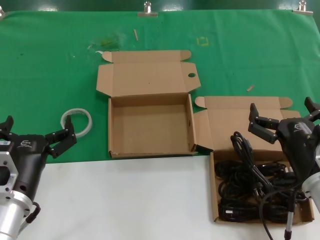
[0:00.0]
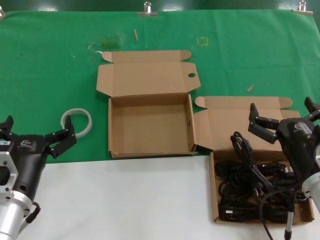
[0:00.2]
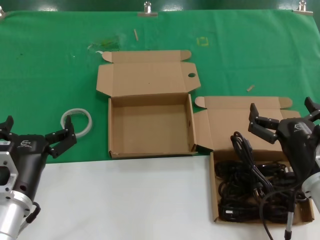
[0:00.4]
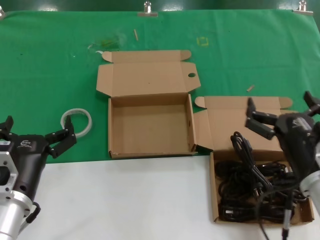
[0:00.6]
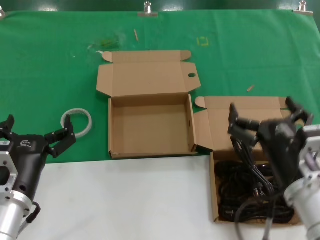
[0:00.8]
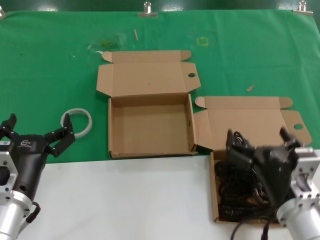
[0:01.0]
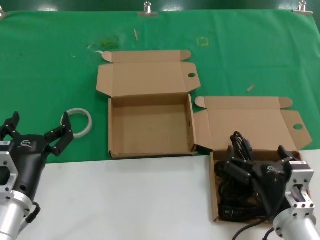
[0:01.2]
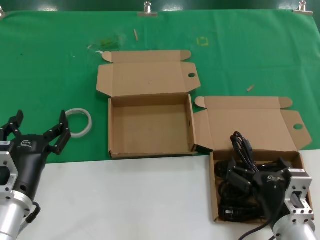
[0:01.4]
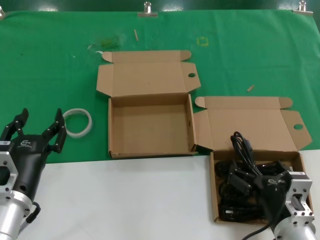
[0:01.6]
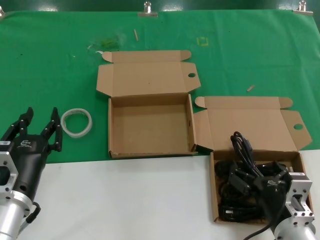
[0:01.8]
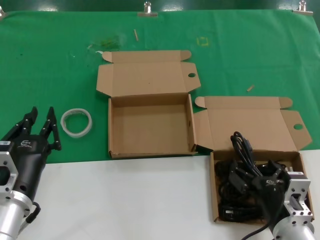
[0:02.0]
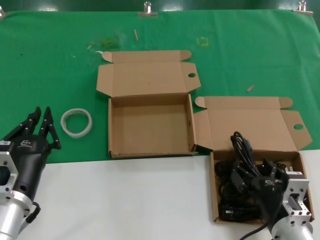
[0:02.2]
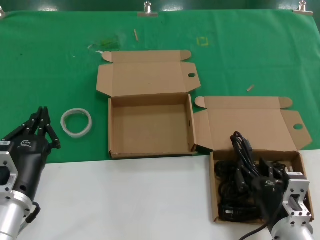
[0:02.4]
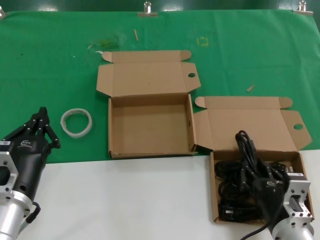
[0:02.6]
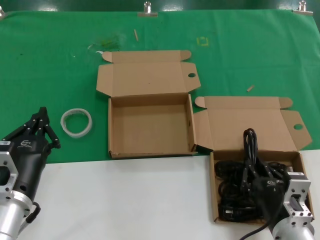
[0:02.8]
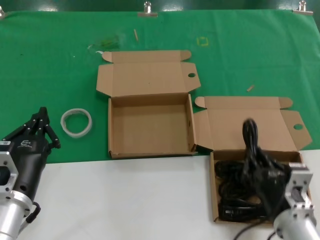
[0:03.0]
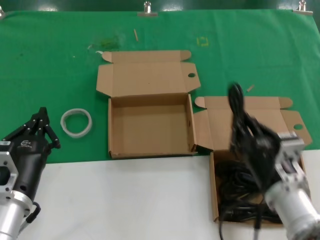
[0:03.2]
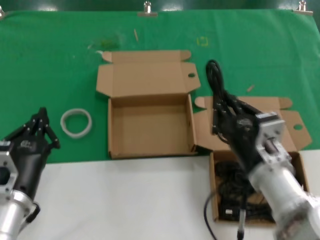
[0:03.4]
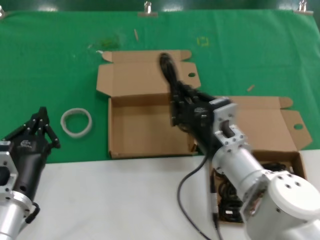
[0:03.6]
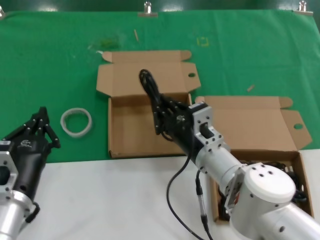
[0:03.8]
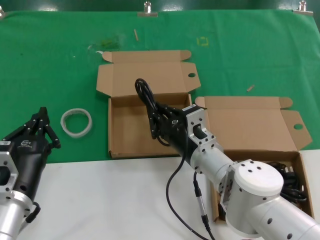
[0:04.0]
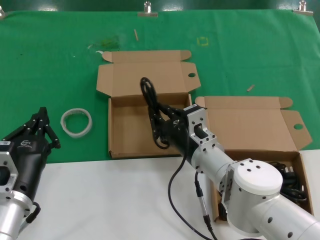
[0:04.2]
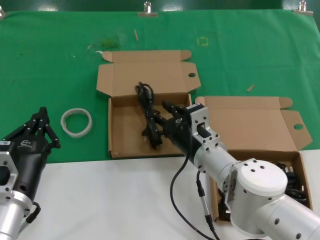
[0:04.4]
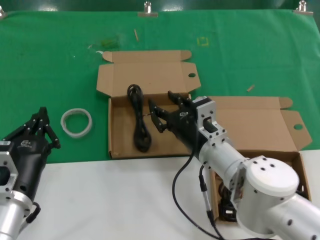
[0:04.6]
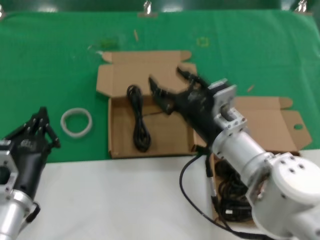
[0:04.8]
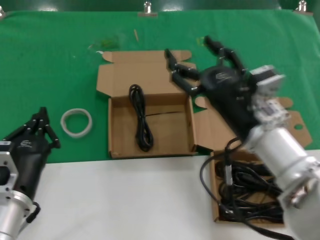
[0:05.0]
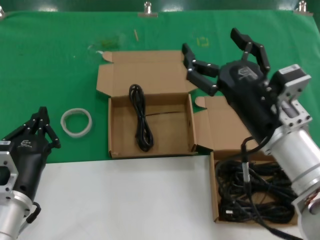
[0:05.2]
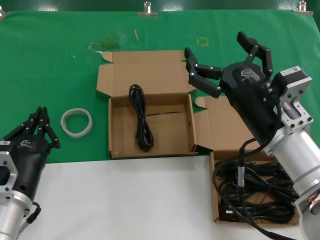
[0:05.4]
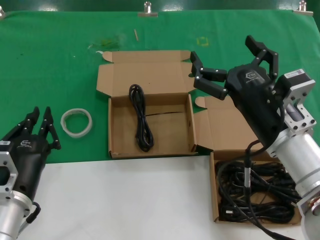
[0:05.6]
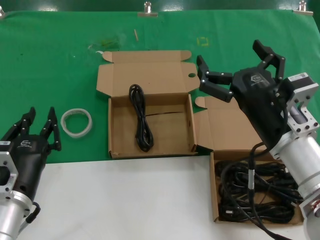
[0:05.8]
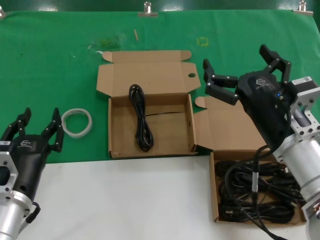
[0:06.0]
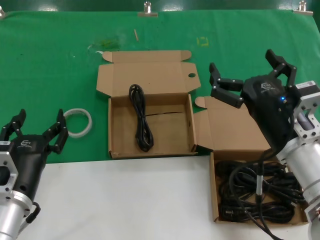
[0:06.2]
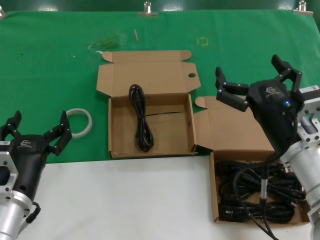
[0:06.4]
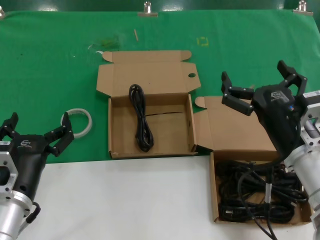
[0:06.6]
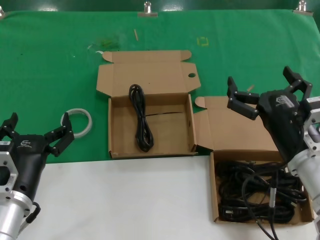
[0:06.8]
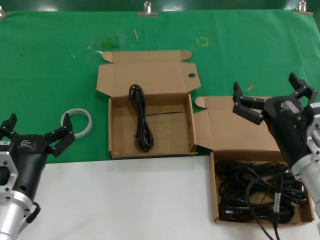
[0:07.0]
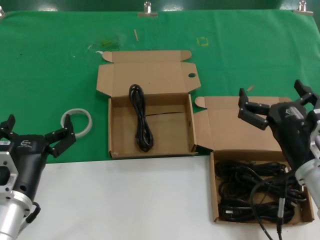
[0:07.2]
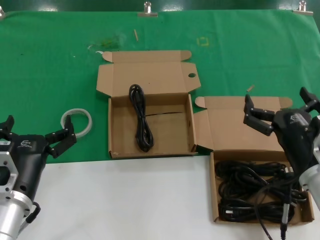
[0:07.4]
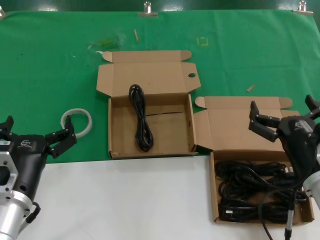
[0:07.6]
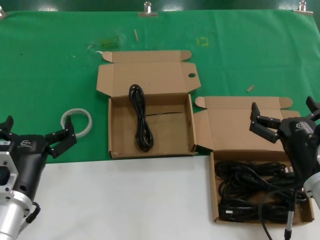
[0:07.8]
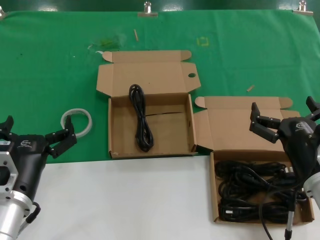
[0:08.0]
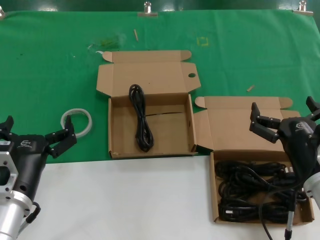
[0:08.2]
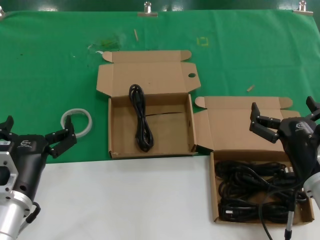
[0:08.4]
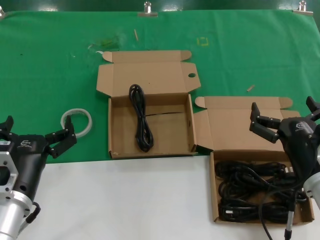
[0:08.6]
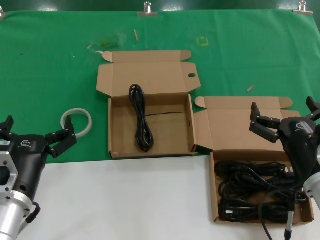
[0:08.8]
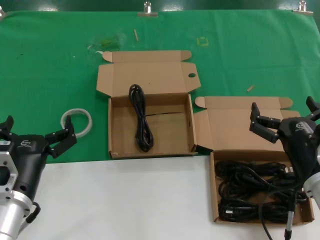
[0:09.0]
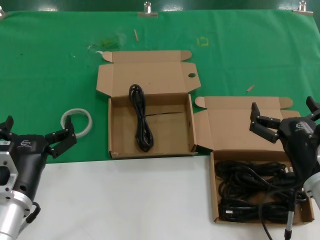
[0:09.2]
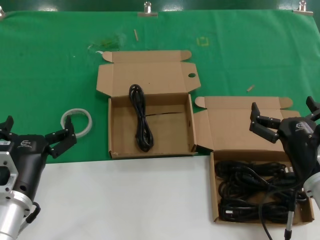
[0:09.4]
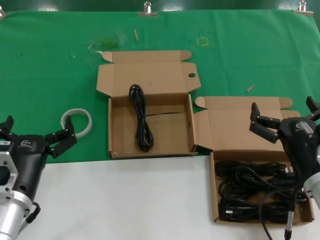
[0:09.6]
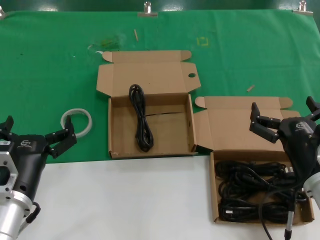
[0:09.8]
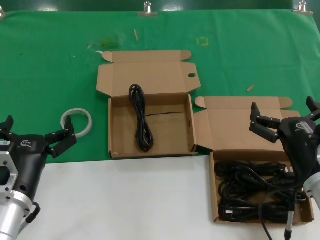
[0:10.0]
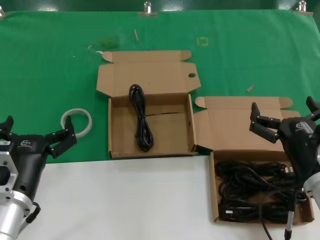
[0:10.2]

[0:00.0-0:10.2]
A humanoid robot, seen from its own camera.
Task of the whole recording: Pick up the power cord from the box containing it and place it in another box.
Step, 0:00.0 to 0:03.0: Grasp the data cable.
Step, 0:03.2 to 0:04.4: Place the data cable in the another box.
0:00.0 to 0:01.4: The right hand travels downward by approximately 5 cm.
0:01.4 to 0:03.0: Neither hand changes place.
0:03.0 to 0:04.4: The right hand is displaced forward and to the left by roughly 20 cm.
0:04.4 to 0:05.8: The right hand heads upward, to the right and backward, covering approximately 15 cm.
0:05.8 to 0:07.2: The right hand is displaced downward by approximately 5 cm.
0:07.2 to 0:08.8: The hands stay close to where they were, moving slightly.
0:08.8 to 0:10.2: Both hands stay about where they are.
